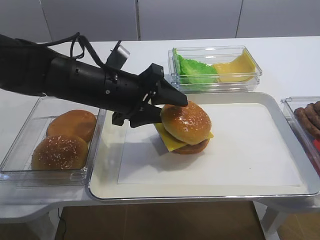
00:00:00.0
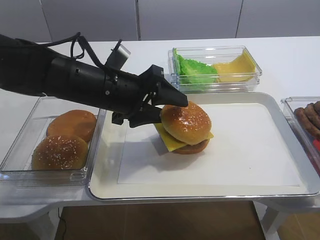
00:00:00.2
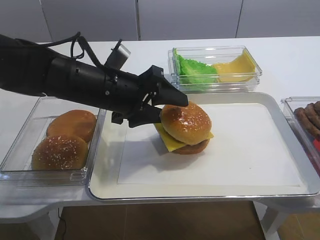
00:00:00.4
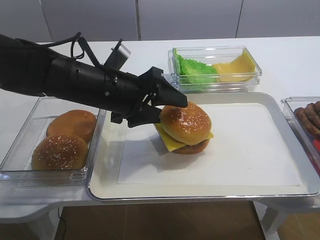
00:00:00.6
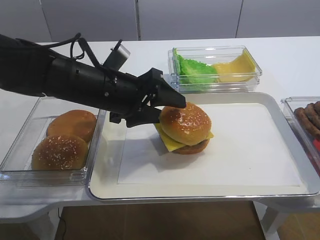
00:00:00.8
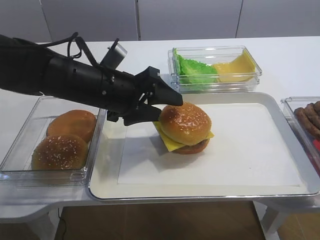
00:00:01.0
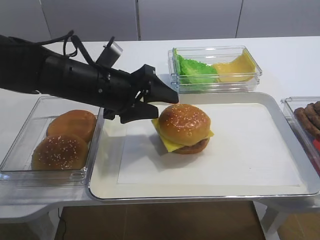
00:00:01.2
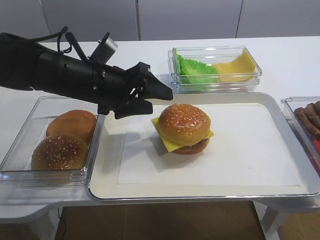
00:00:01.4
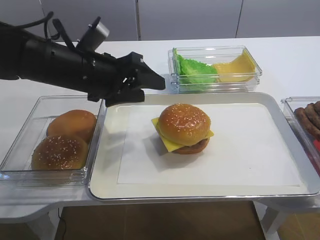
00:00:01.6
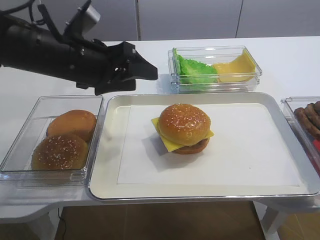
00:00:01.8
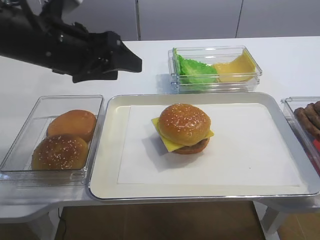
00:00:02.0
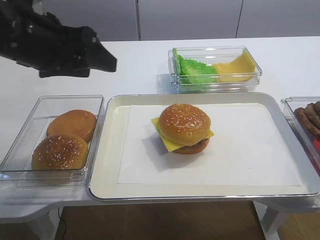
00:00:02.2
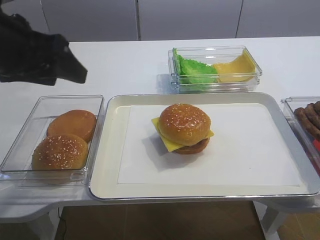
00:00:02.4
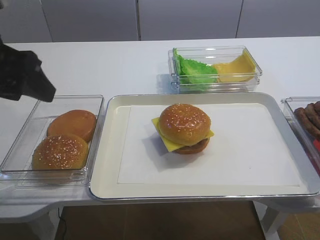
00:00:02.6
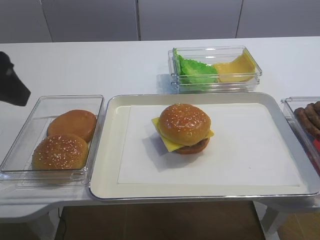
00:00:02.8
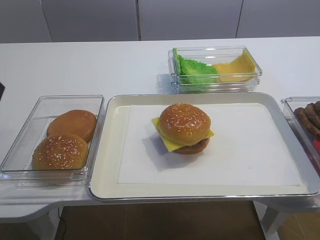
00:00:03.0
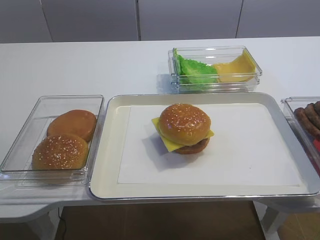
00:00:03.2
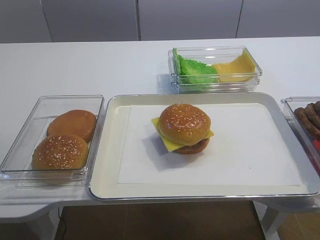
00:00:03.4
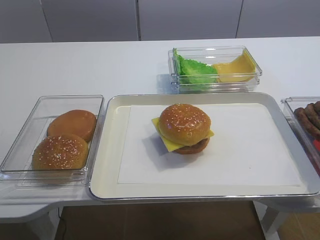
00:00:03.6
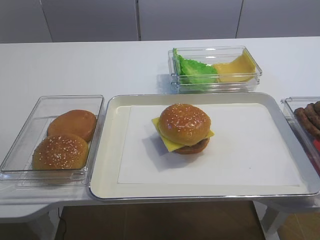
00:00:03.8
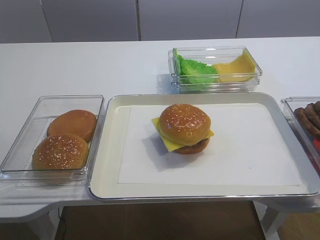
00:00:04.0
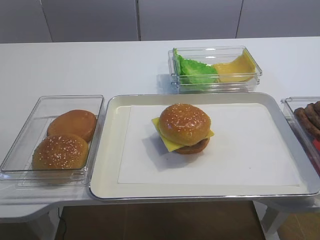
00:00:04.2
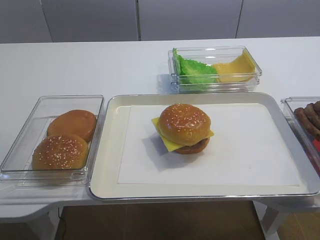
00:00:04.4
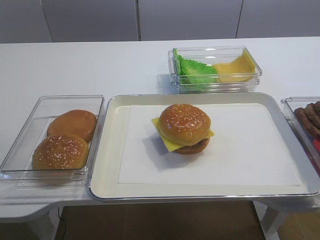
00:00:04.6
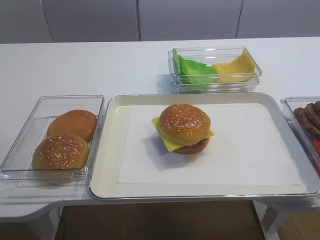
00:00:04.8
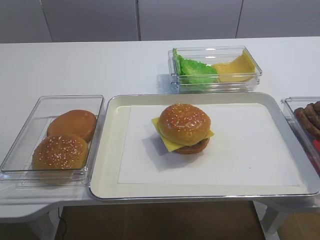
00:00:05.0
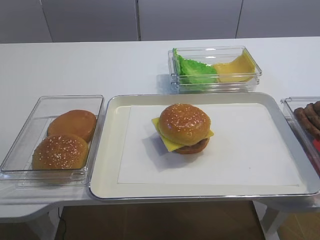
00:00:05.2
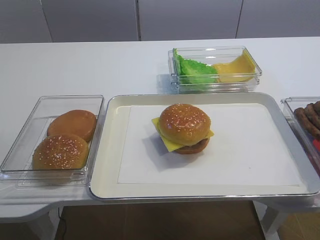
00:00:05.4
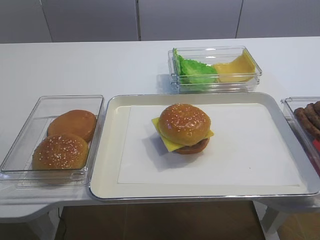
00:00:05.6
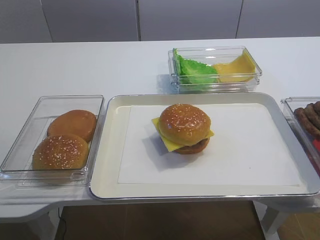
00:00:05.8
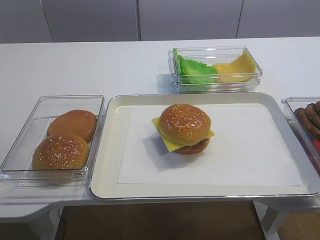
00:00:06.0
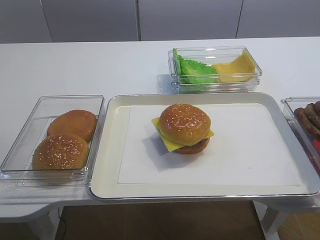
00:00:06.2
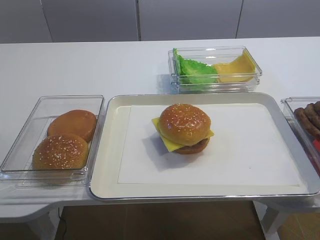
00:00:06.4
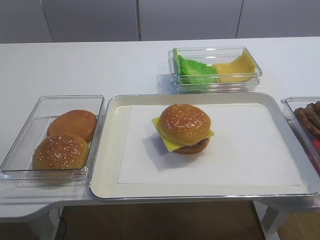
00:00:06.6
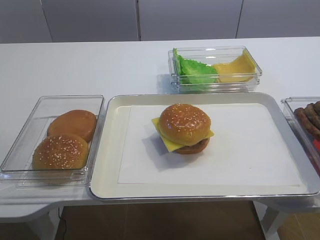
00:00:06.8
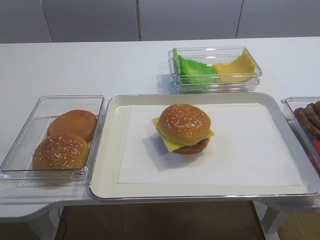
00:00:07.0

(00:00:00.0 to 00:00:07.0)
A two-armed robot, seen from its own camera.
00:00:00.0 - 00:00:01.4: The right gripper closes its fingers.
00:00:01.4 - 00:00:02.8: The left gripper heads to the left, upward and backward, covering about 20 cm.
00:00:02.8 - 00:00:04.2: The left gripper is displaced backward by roughly 20 cm.

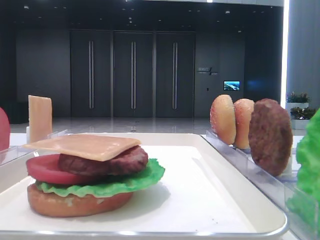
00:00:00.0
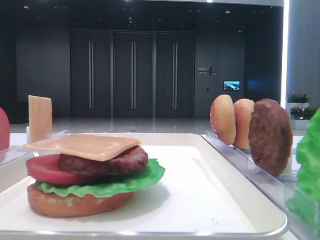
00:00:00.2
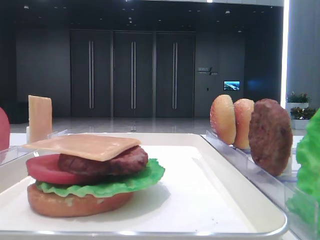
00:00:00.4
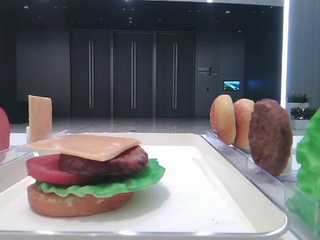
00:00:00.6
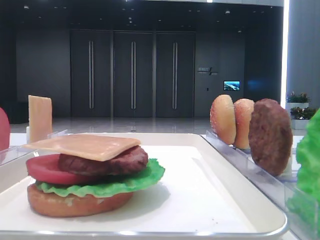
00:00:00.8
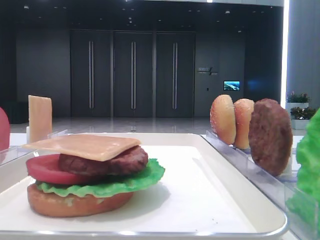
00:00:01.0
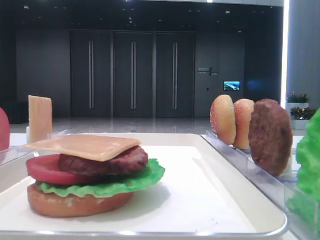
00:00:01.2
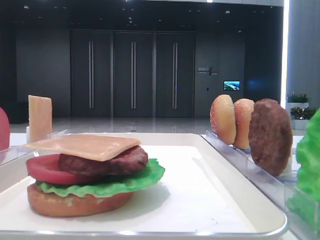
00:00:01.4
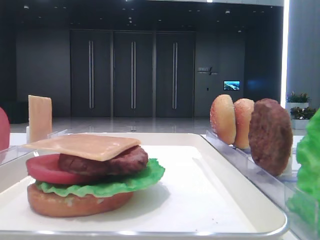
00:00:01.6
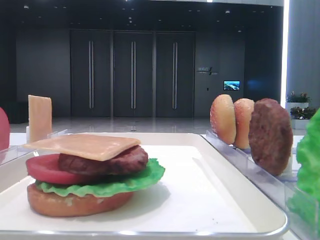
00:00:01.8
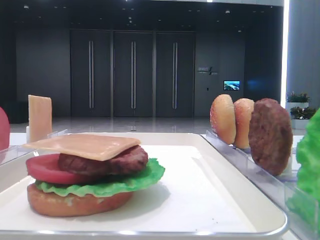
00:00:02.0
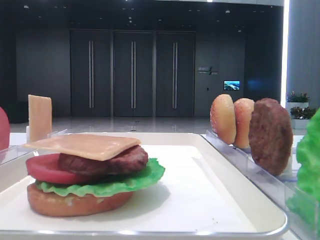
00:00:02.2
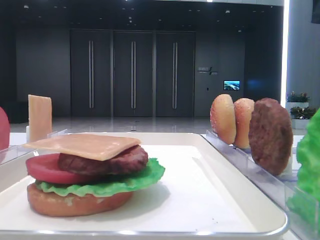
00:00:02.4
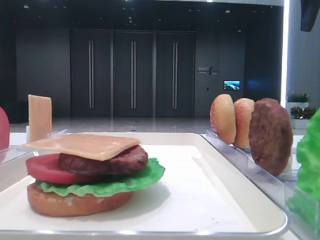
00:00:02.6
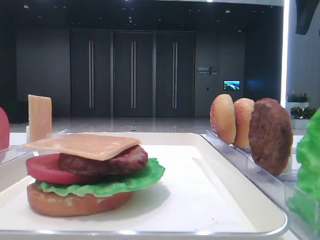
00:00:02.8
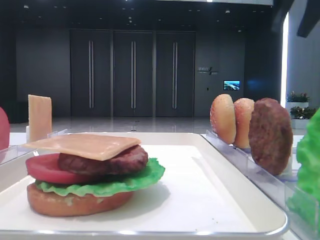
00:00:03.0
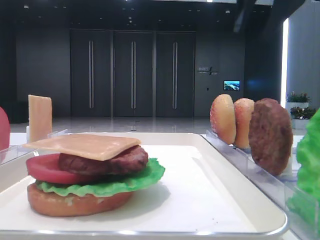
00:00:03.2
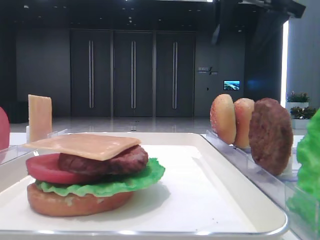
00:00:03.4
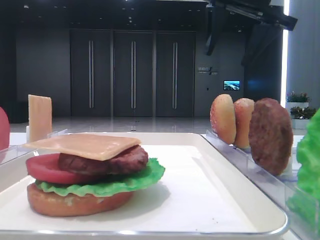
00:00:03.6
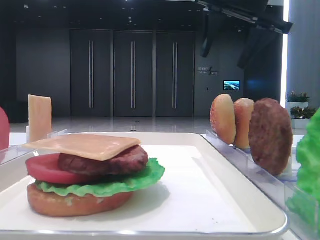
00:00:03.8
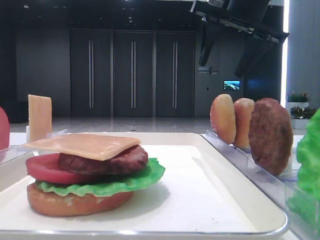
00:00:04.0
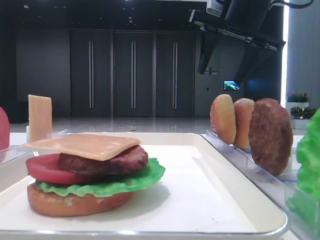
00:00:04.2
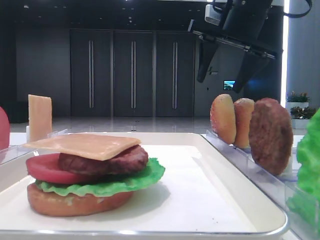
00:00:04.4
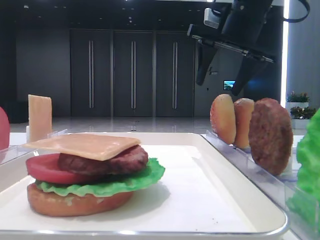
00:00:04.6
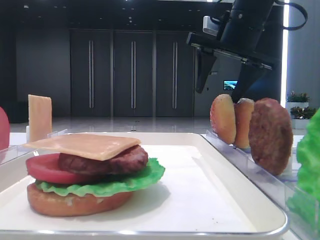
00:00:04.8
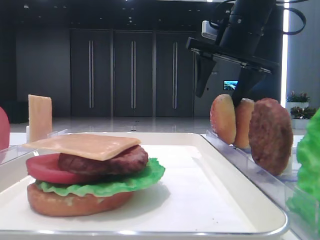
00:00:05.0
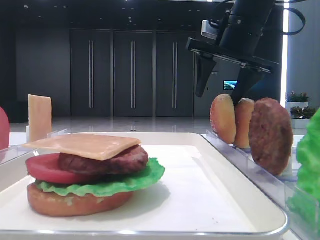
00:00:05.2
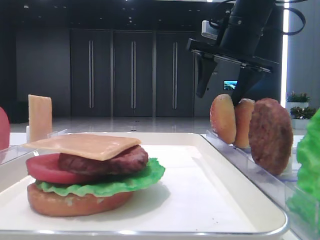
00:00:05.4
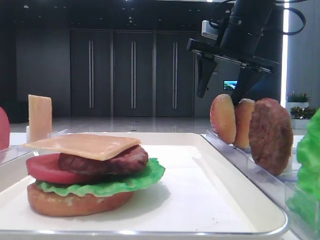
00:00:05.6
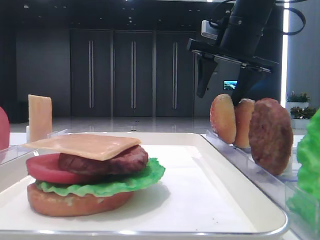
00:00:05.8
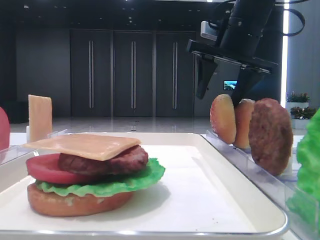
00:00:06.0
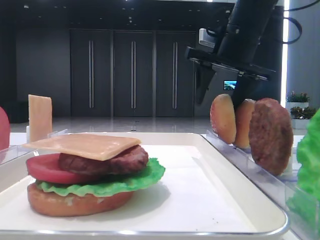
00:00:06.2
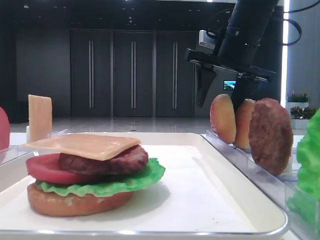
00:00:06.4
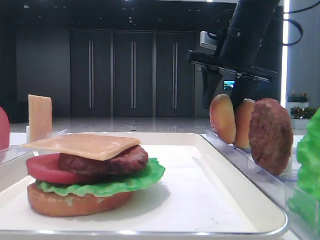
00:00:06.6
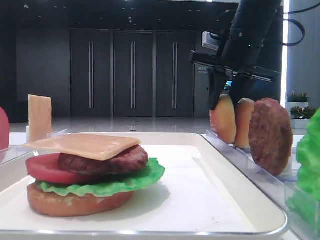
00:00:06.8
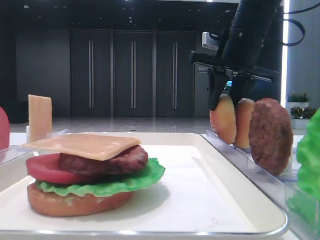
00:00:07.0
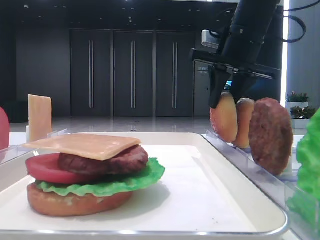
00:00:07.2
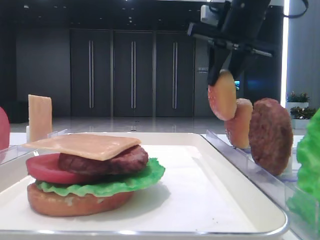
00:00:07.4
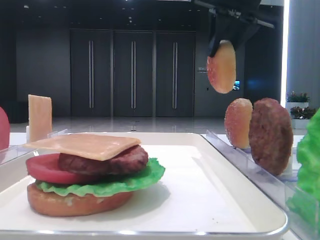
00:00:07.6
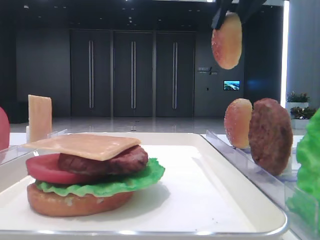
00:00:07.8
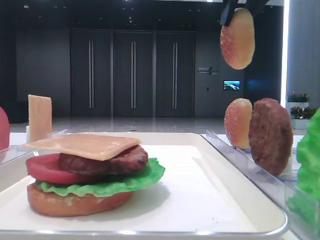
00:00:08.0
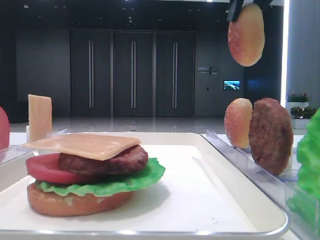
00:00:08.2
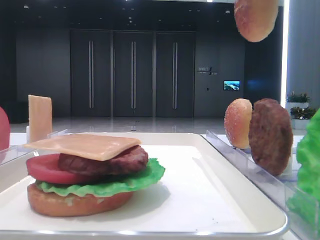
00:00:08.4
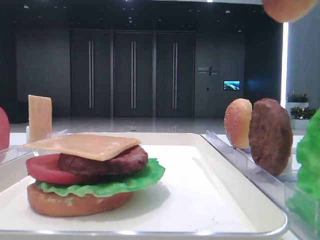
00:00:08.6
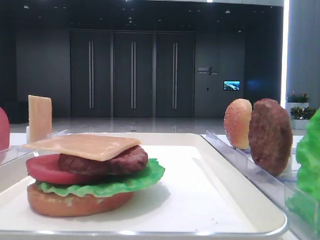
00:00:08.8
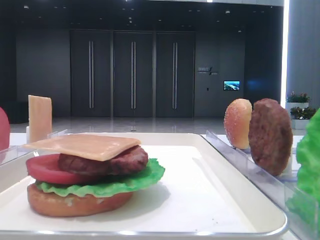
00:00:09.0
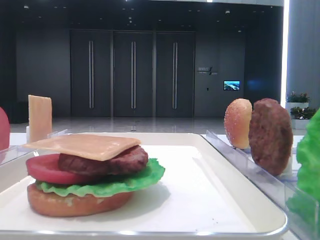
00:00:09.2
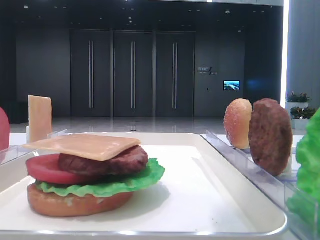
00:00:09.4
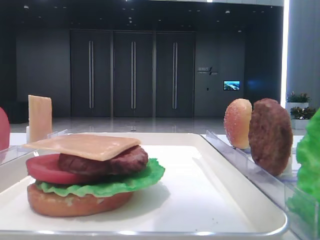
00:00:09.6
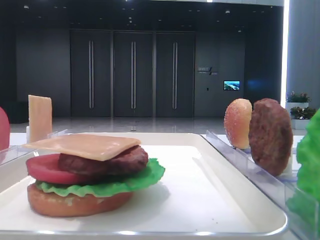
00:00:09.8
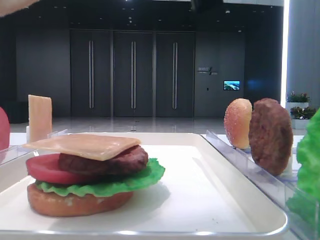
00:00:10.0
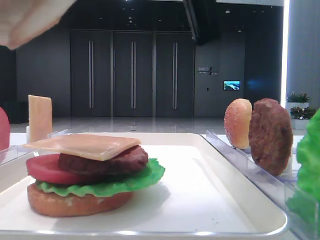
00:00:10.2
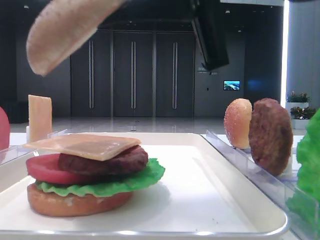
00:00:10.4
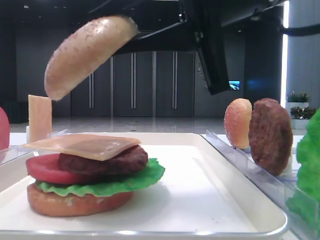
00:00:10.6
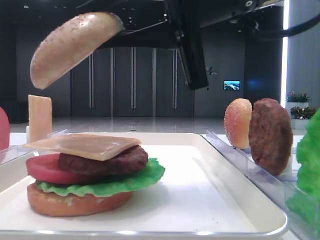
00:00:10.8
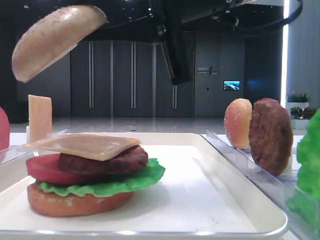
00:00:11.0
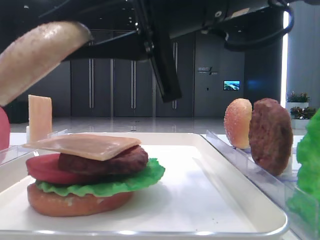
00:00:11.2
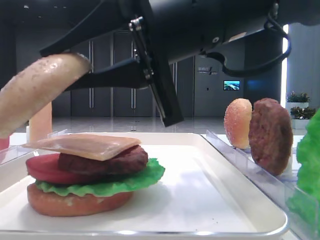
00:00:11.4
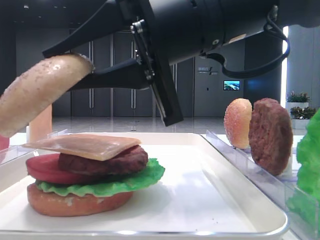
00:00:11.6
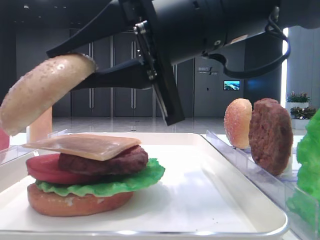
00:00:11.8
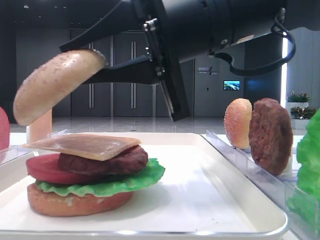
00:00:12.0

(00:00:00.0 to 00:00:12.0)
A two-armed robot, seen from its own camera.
Step, 00:00:00.0 - 00:00:07.0: Pick up the top bread slice with the right hand.
00:00:01.6 - 00:00:03.0: The right gripper travels forward by approximately 25 cm.
00:00:03.0 - 00:00:04.4: The right gripper heads to the left and downward, covering roughly 10 cm, and opens.
00:00:04.4 - 00:00:06.0: The grippers make only small movements.
00:00:06.0 - 00:00:07.6: The right gripper heads upward, covering some 5 cm, and closes its fingers.
00:00:07.6 - 00:00:09.0: The right gripper travels backward by about 30 cm.
00:00:09.0 - 00:00:10.4: The right gripper goes approximately 20 cm downward, forward and to the left.
00:00:10.4 - 00:00:12.0: The right gripper changes place by about 5 cm.

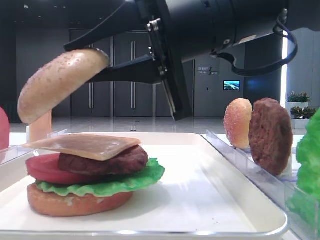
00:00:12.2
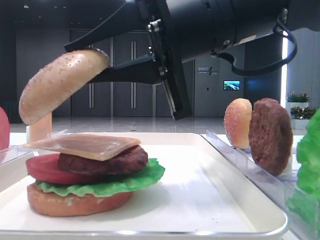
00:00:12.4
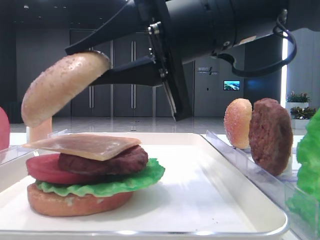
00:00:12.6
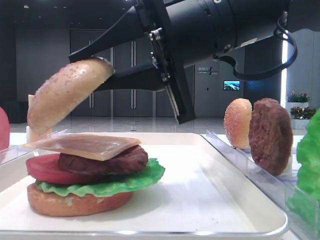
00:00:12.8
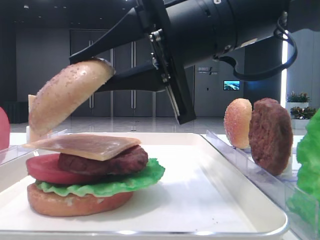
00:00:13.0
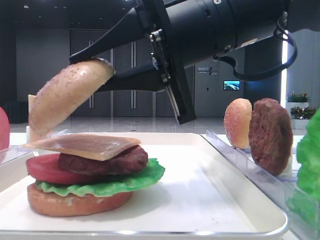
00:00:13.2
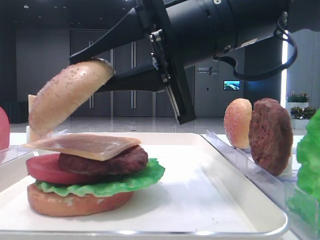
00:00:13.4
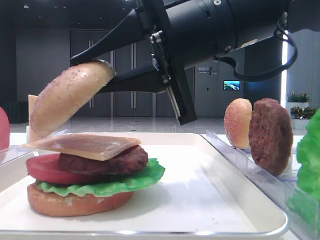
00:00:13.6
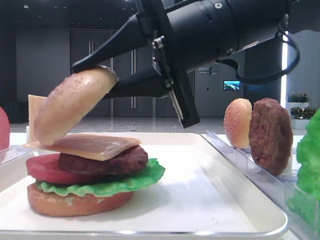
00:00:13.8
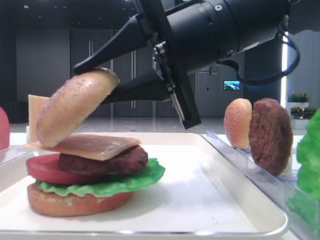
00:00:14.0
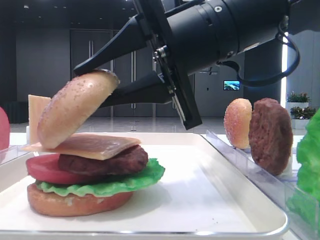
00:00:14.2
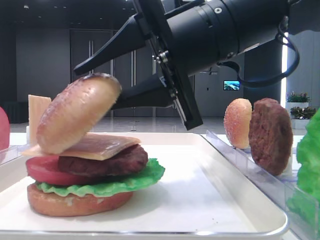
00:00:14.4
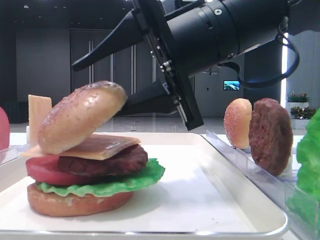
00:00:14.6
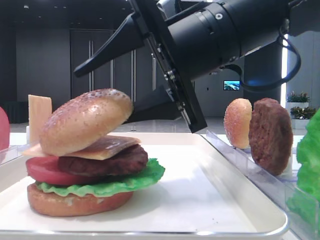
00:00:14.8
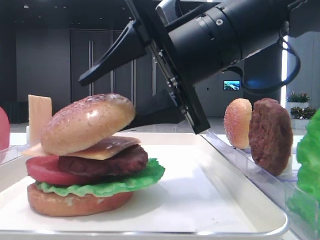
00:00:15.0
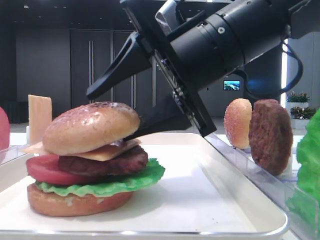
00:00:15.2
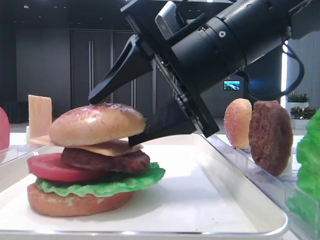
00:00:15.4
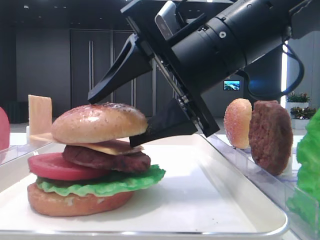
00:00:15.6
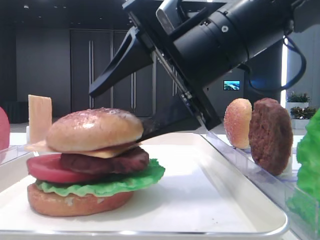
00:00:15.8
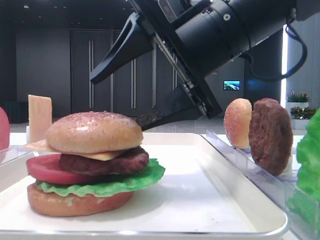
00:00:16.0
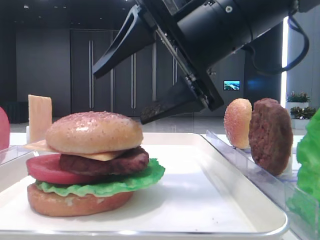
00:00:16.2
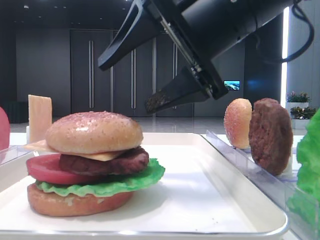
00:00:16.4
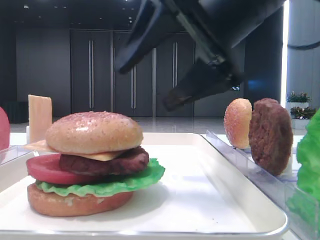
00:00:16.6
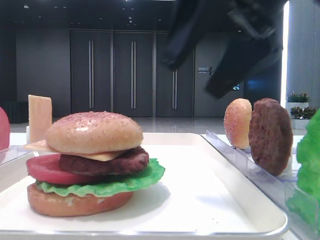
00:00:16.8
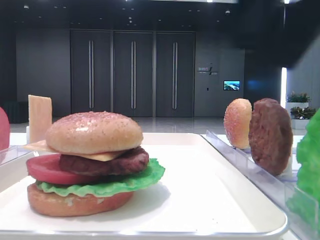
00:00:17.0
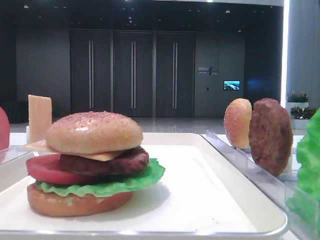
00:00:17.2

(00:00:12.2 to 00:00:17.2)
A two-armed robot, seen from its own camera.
Step, 00:00:12.2 - 00:00:15.8: Place the top bread slice on the cheese with the right hand.
00:00:12.2 - 00:00:13.8: There are only small adjustments of the grippers.
00:00:13.8 - 00:00:15.6: The right gripper opens.
00:00:15.6 - 00:00:17.2: The right gripper is displaced upward and to the right by roughly 20 cm.
